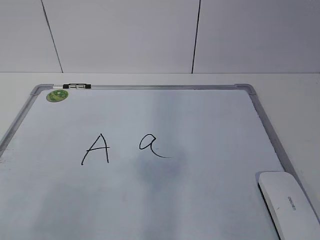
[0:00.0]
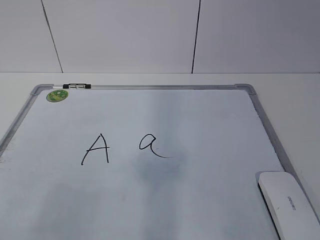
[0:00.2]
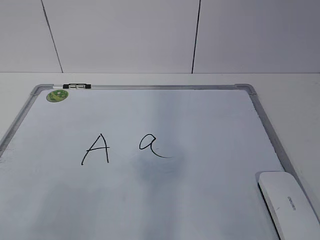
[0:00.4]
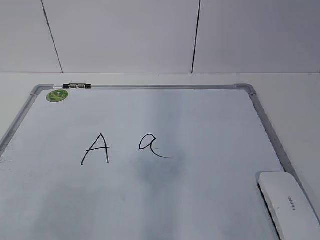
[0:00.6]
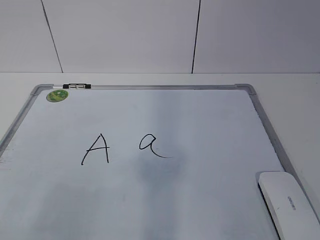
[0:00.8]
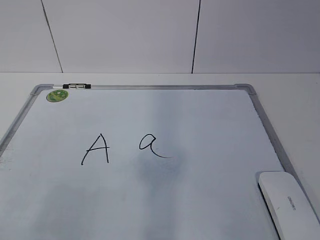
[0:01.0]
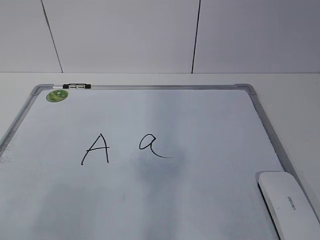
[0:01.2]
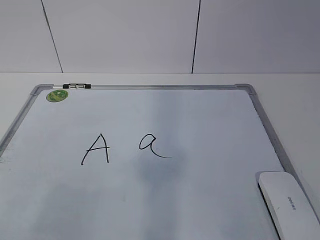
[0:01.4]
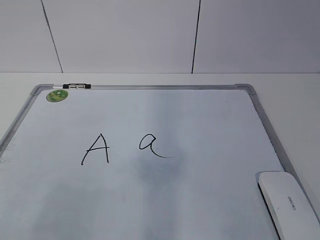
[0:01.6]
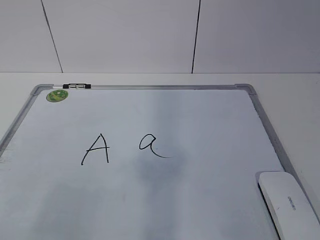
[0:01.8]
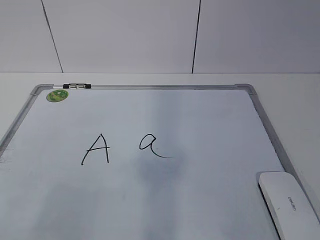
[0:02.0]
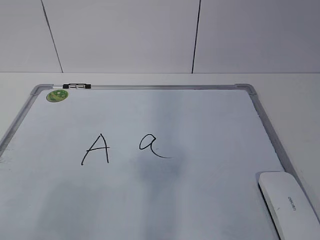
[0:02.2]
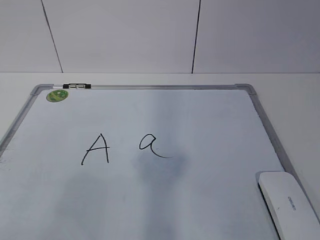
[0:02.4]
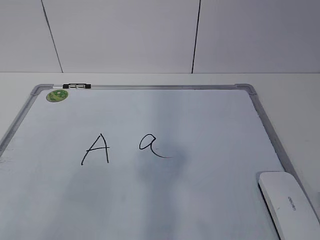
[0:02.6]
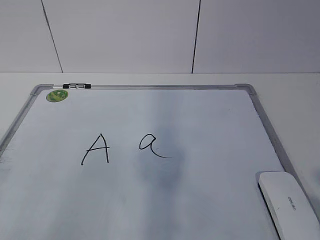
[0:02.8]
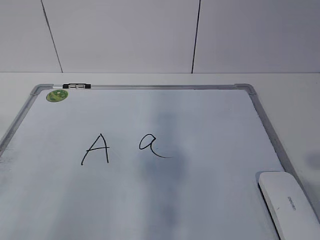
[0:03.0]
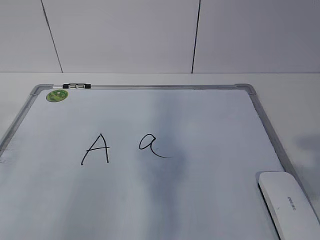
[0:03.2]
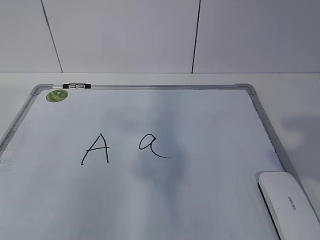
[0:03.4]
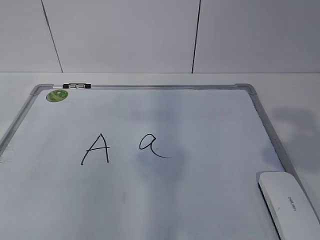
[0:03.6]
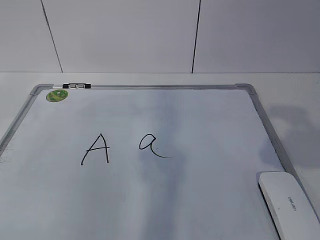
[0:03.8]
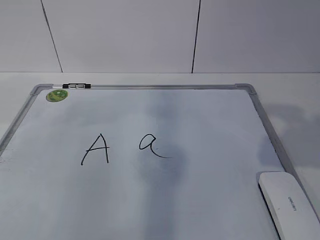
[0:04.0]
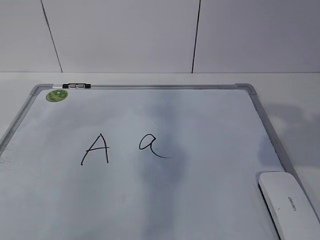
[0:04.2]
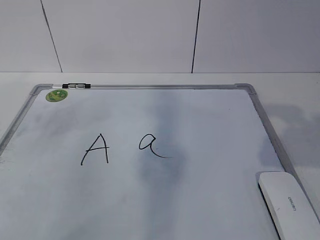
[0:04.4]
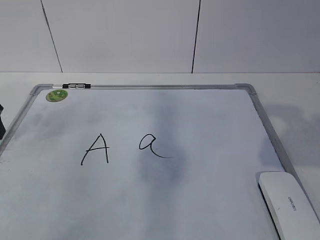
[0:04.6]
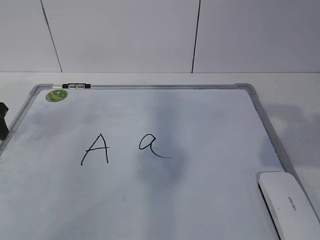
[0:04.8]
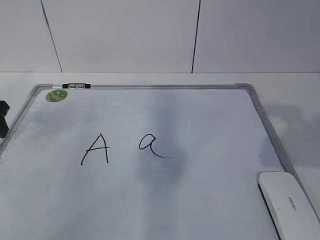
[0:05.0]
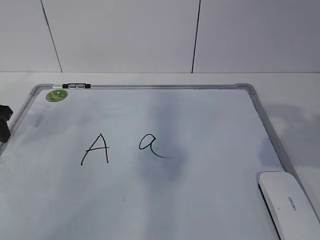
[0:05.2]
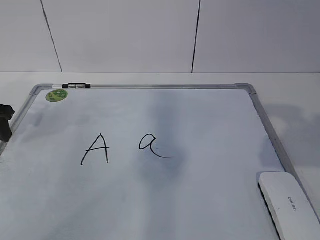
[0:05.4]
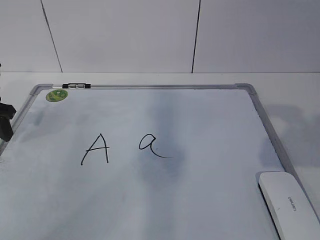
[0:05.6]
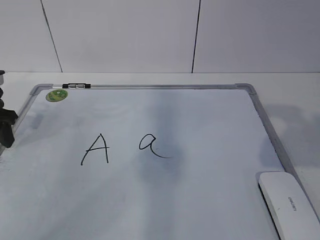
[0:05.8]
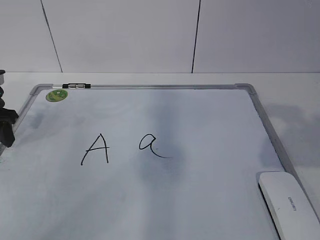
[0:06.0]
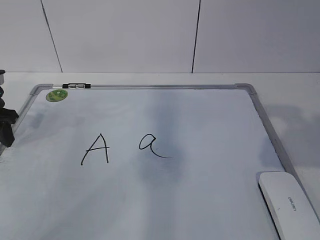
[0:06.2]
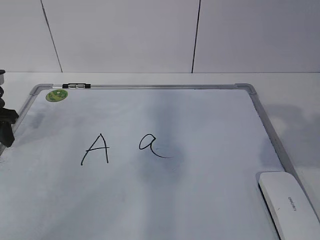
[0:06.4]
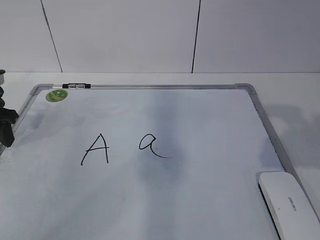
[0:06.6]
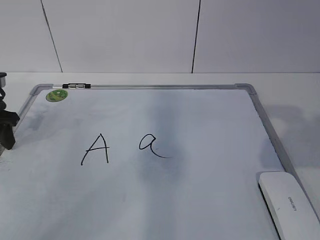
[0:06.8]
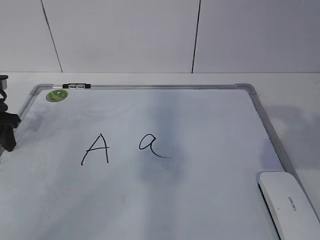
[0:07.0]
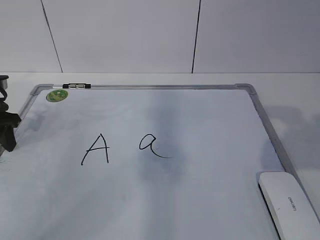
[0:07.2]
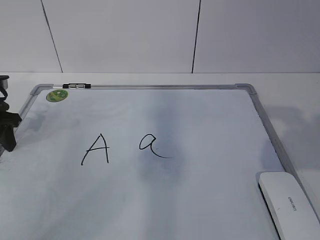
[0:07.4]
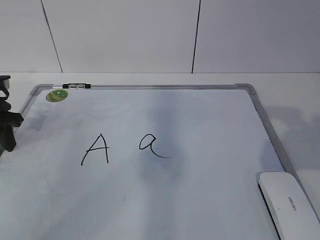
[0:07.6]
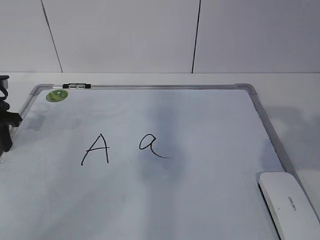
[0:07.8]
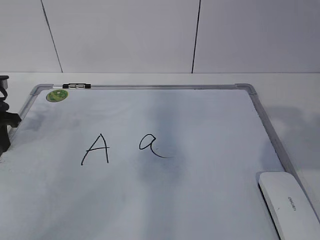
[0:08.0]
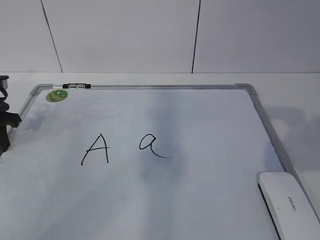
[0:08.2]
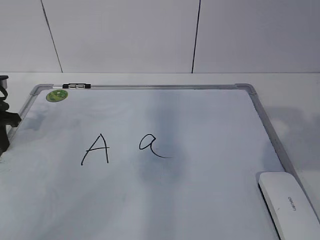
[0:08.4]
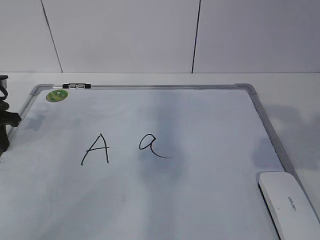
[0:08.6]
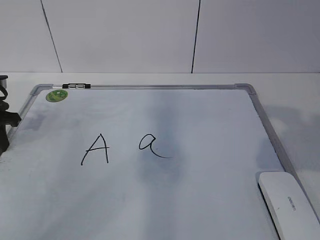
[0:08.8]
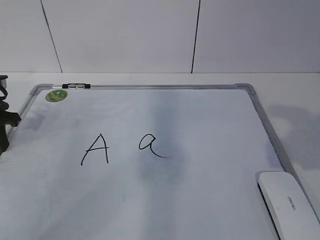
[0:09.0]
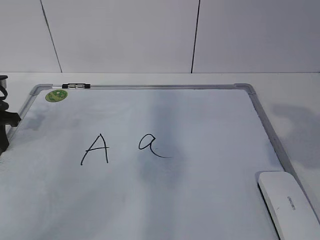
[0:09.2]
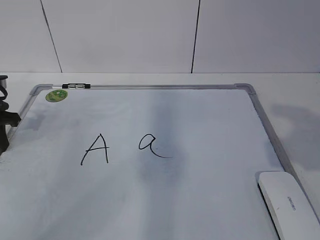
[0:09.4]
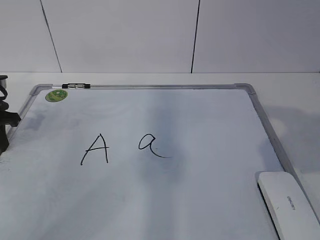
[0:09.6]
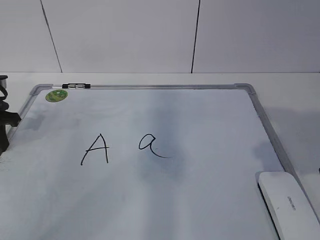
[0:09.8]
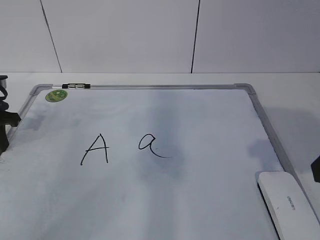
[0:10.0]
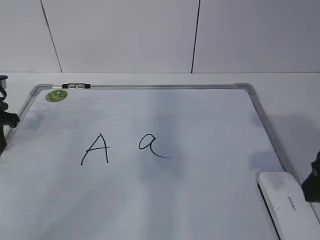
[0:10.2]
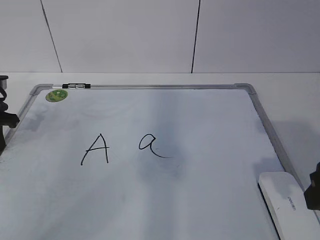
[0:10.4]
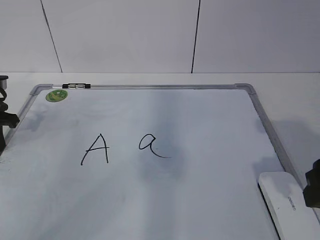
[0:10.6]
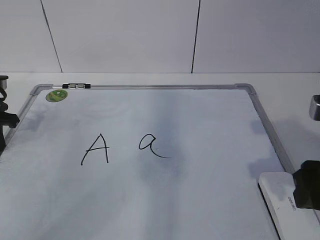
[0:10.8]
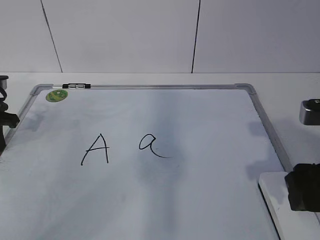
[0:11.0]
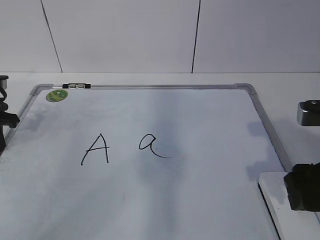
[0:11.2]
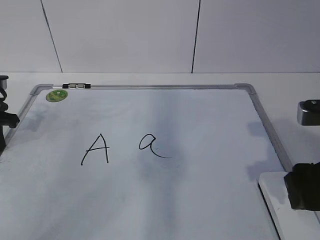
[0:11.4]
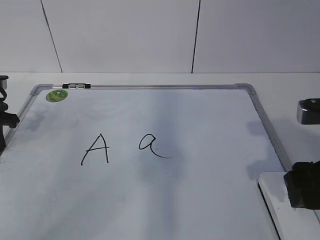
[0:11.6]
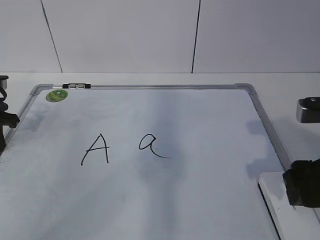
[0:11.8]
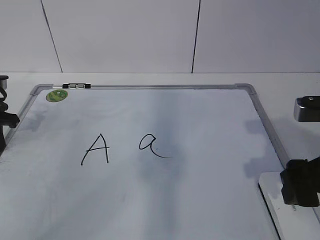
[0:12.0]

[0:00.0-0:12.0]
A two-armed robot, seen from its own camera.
Task of the whole recording: pick up the eraser on the blackboard and erase the letter "a".
0:04.4 to 0:06.0: The left gripper is displaced downward by approximately 5 cm.
0:09.0 to 0:10.4: The right gripper is displaced downward by roughly 5 cm.
0:10.4 to 0:12.0: The grippers move only a little.

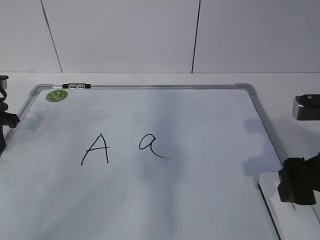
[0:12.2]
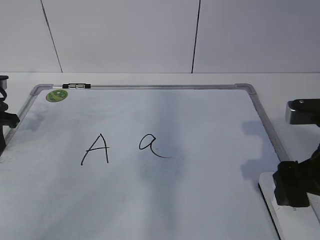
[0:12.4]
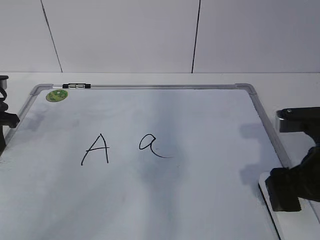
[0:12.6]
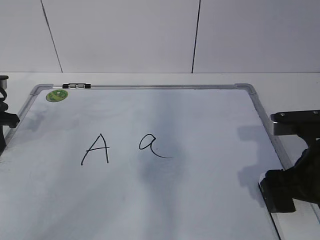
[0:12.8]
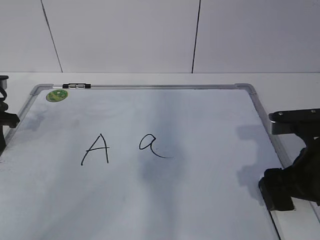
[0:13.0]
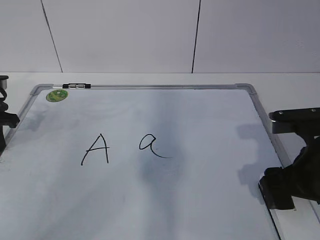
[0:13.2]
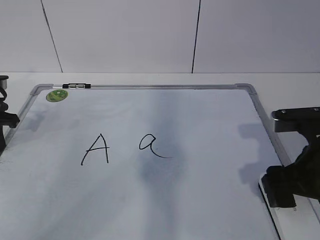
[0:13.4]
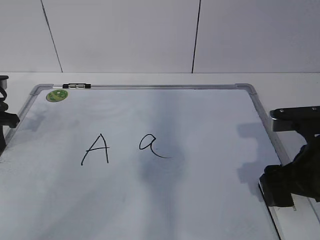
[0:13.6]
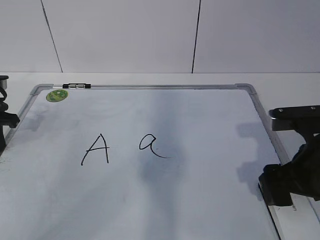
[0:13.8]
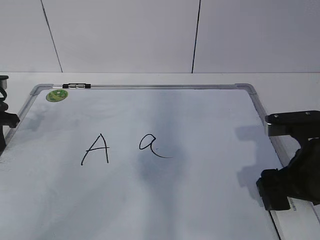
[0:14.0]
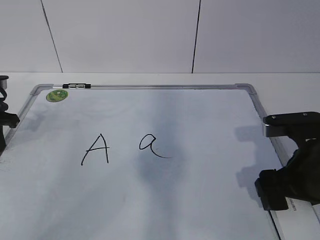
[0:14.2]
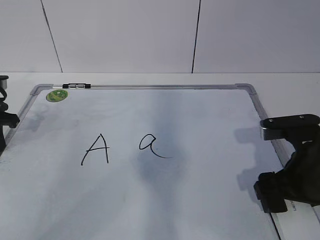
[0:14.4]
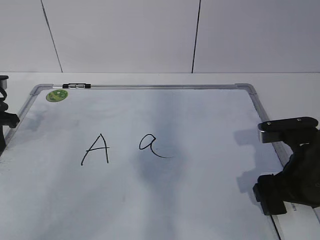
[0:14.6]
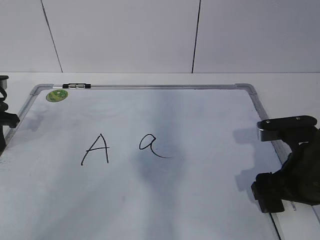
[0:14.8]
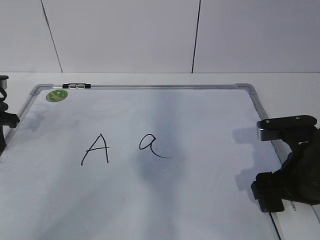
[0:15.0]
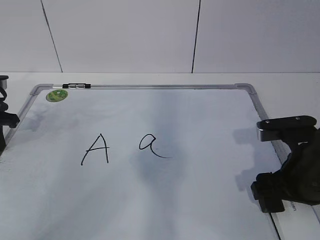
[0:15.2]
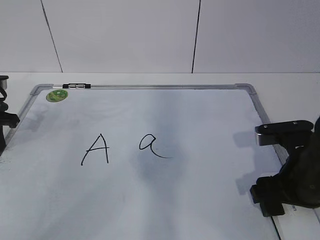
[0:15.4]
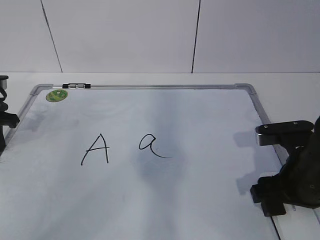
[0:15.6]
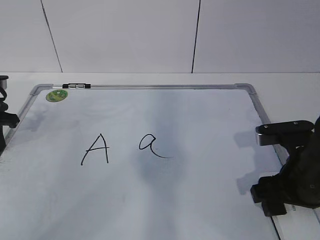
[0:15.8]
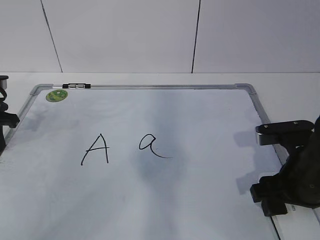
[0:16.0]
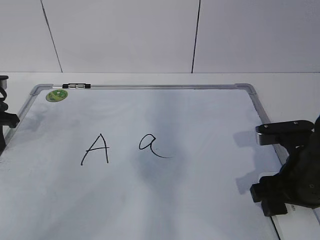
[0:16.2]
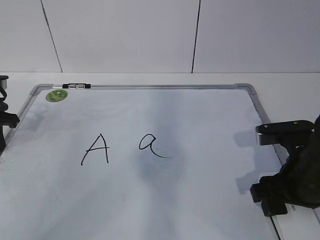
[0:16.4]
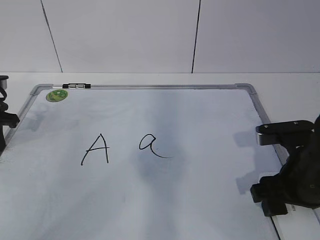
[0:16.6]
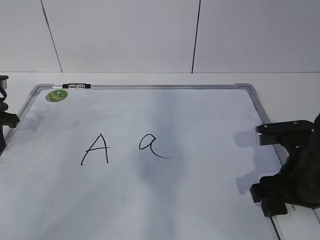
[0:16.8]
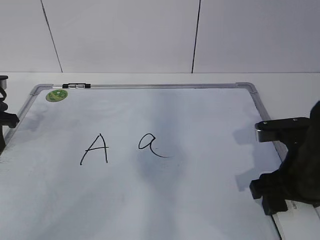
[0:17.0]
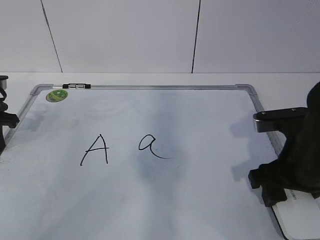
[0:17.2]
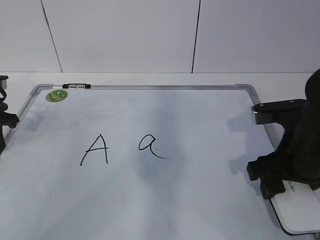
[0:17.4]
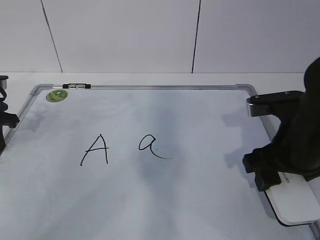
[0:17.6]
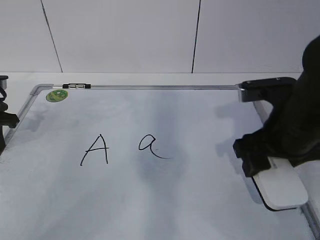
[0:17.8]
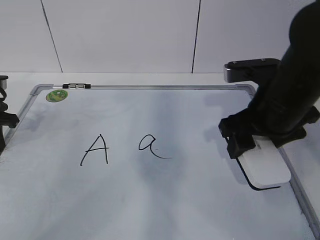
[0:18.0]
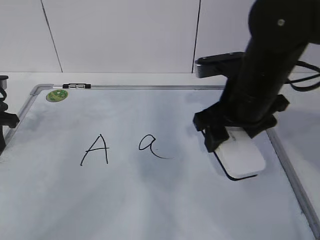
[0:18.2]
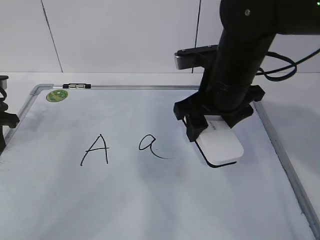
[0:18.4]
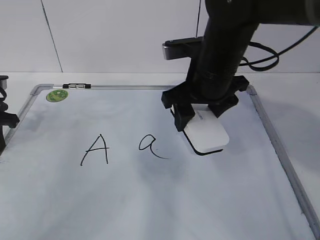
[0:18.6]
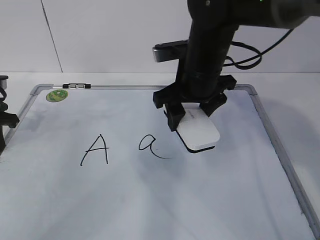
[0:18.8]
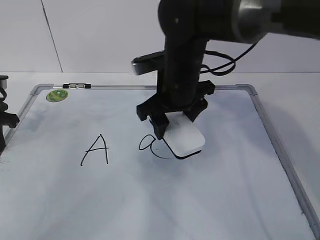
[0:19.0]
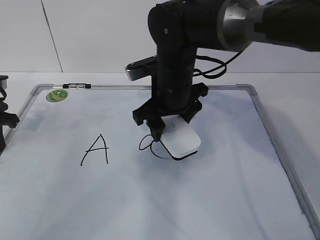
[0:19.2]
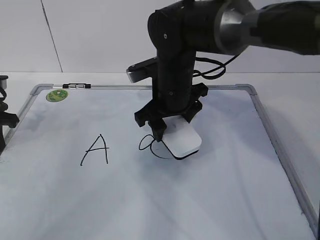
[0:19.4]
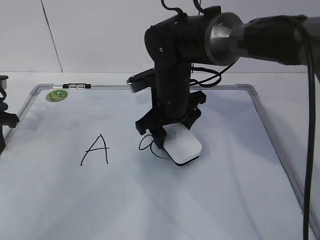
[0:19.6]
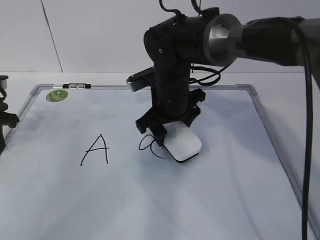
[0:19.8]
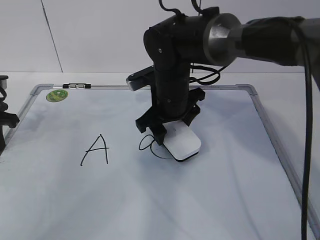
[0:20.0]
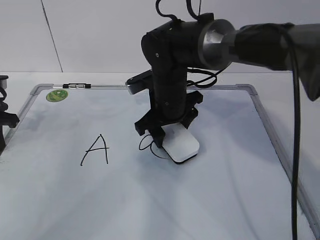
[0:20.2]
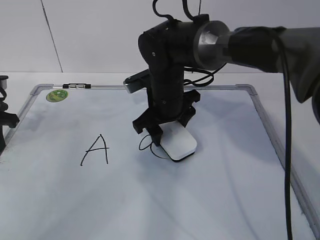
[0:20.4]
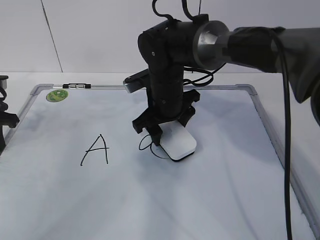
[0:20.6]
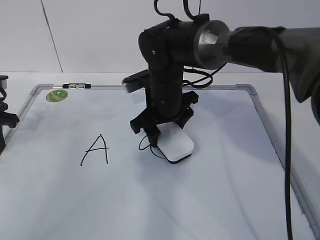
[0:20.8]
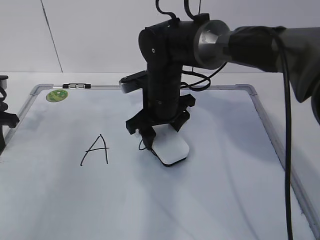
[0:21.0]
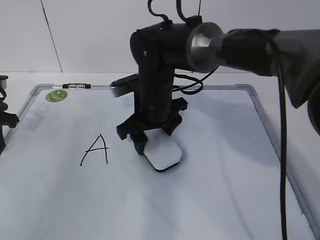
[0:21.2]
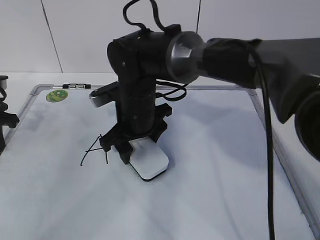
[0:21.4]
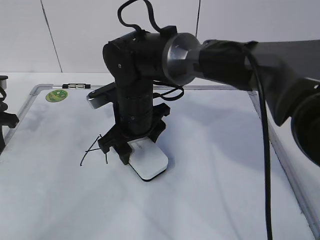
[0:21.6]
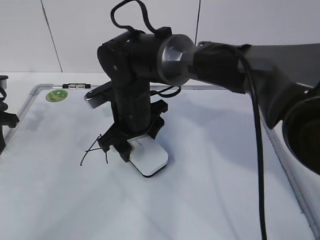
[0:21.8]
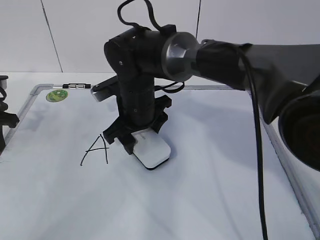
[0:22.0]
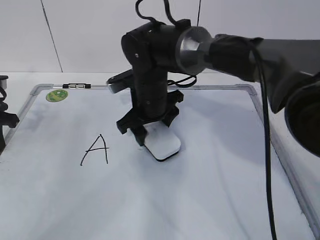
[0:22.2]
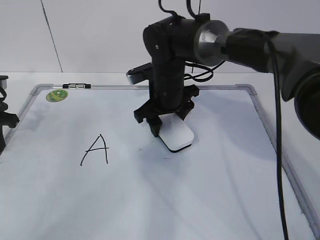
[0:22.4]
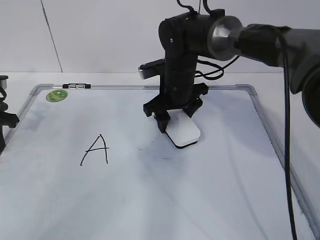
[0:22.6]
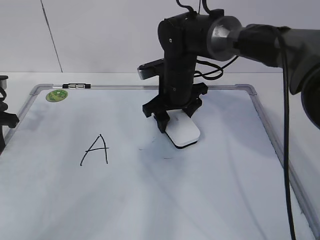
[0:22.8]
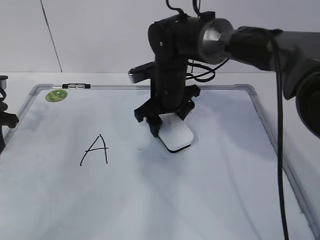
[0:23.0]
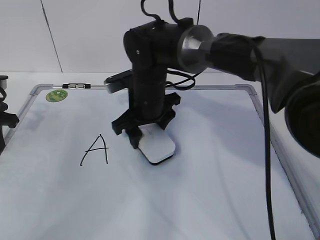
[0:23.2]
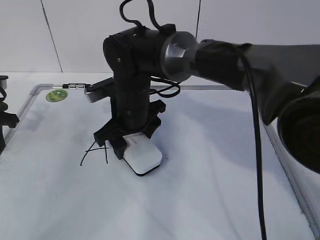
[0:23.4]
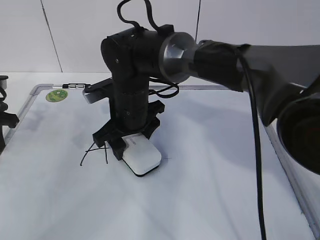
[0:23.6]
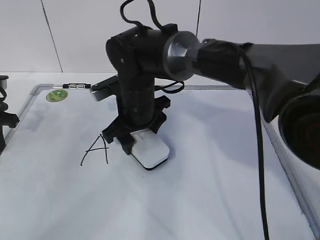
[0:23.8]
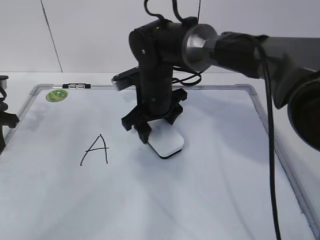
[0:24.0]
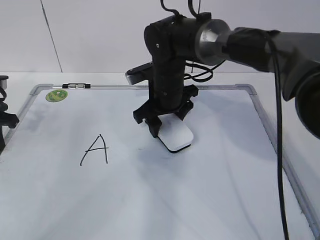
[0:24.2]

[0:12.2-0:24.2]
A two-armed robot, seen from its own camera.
Task of the whole recording: pick up the eraser on the blackboard and erase the letter "a".
Step, 0:14.0 to 0:20.0: Erase the letter a with your right hand.
Step, 0:20.2 to 0:22.2: Put down the eraser with your right hand.
0:12.2 to 0:13.8: The grippers stay close to where they were, moving slightly.
0:13.8 to 0:15.2: The grippers make only small movements.
0:15.2 to 0:16.6: The right gripper closes up.
0:16.6 to 0:18.2: The right gripper heads upward, forward and to the left, covering approximately 15 cm.
0:18.2 to 0:19.8: The right gripper shifts roughly 15 cm to the left, forward and downward.
0:19.8 to 0:21.2: The grippers make only small movements.
0:21.2 to 0:22.6: The right gripper shifts about 10 cm forward and to the right.
0:22.6 to 0:24.2: The right gripper reaches approximately 10 cm to the left, then returns.
